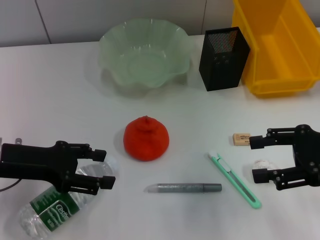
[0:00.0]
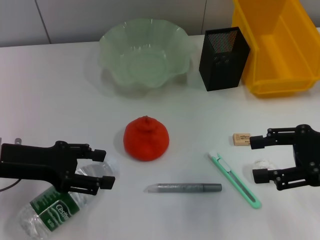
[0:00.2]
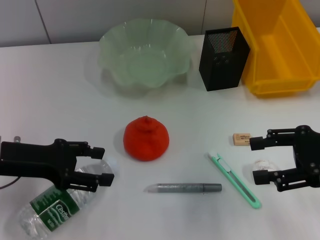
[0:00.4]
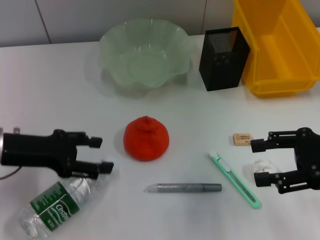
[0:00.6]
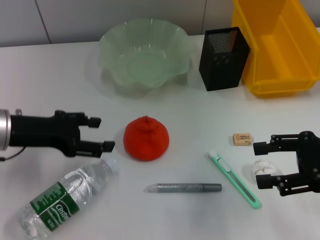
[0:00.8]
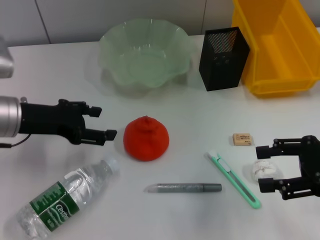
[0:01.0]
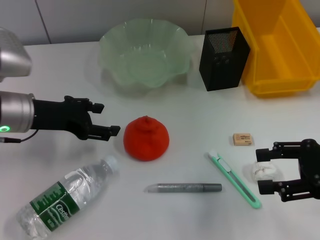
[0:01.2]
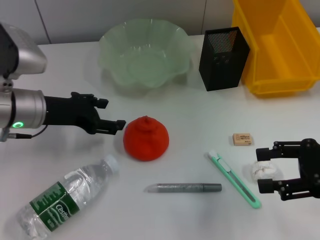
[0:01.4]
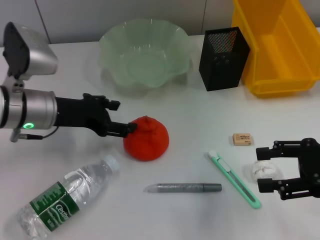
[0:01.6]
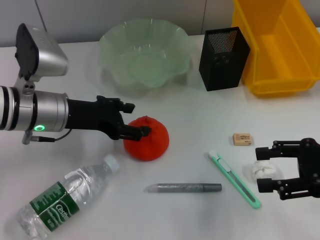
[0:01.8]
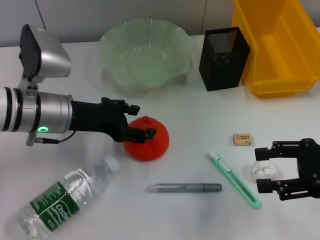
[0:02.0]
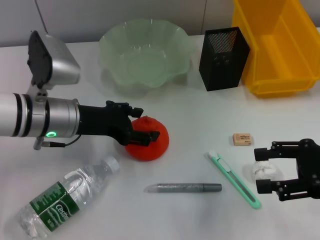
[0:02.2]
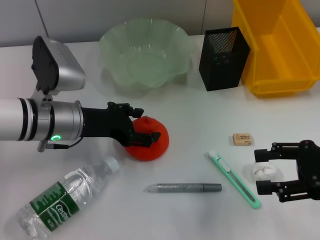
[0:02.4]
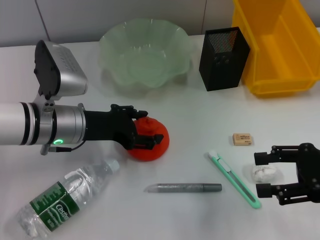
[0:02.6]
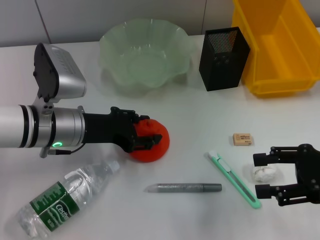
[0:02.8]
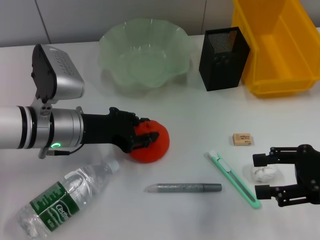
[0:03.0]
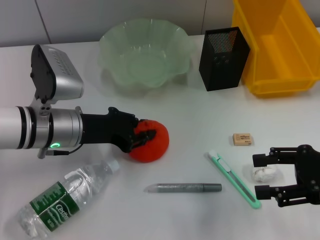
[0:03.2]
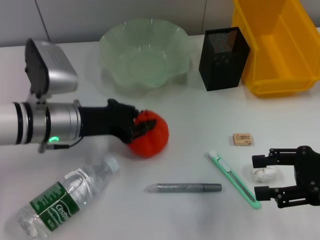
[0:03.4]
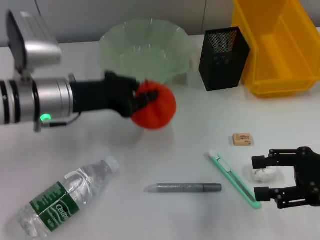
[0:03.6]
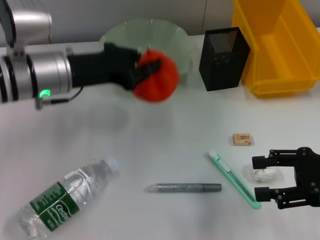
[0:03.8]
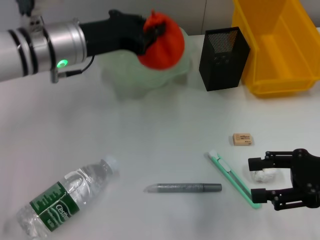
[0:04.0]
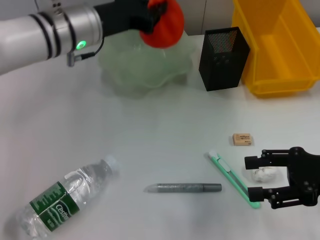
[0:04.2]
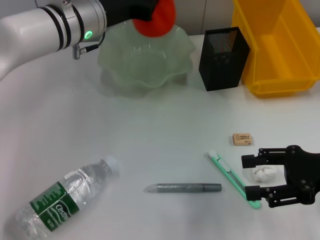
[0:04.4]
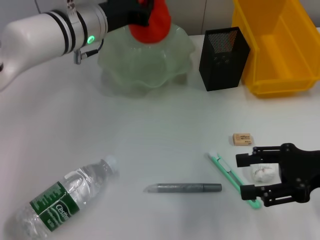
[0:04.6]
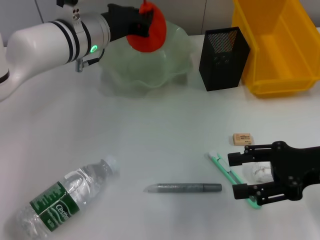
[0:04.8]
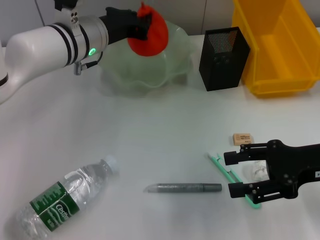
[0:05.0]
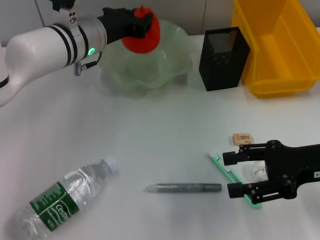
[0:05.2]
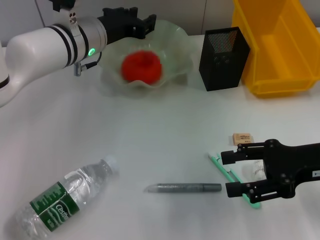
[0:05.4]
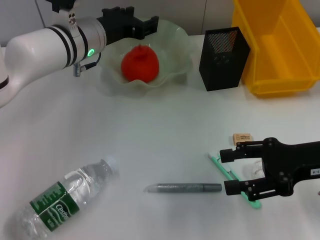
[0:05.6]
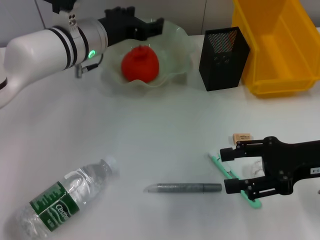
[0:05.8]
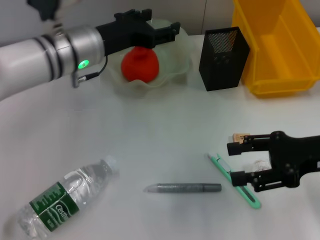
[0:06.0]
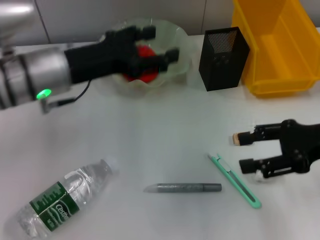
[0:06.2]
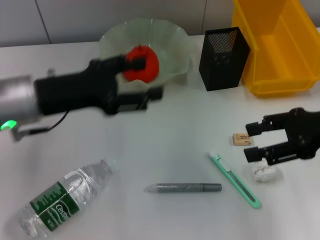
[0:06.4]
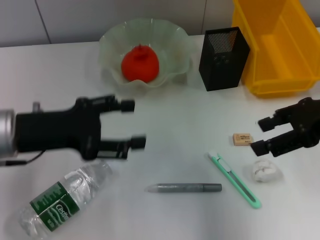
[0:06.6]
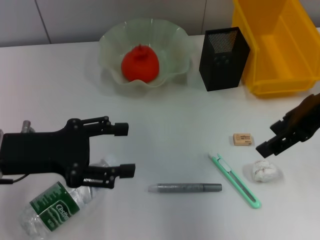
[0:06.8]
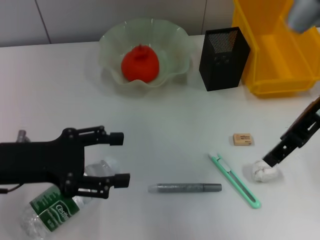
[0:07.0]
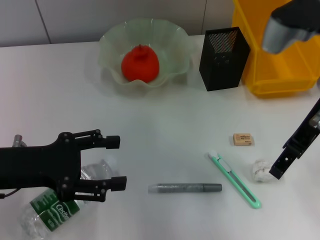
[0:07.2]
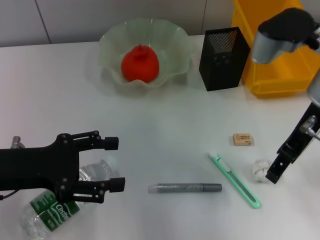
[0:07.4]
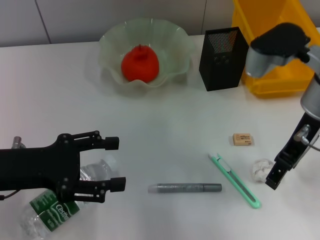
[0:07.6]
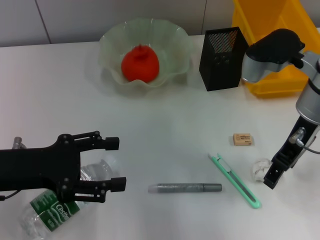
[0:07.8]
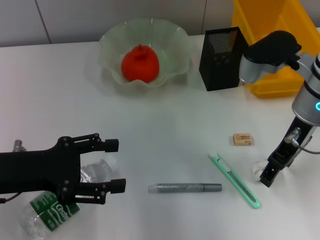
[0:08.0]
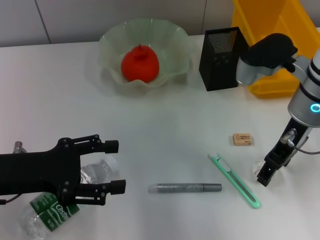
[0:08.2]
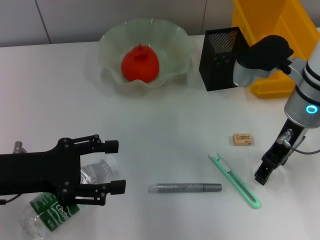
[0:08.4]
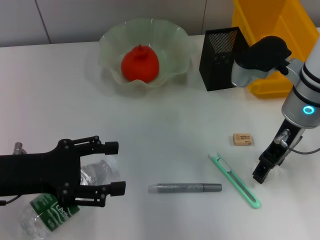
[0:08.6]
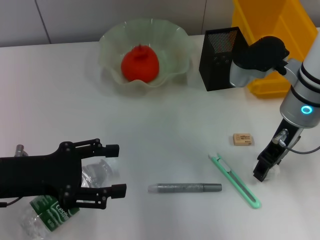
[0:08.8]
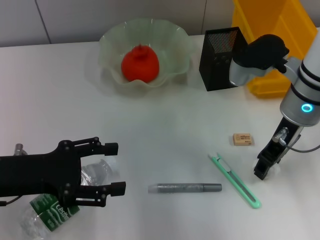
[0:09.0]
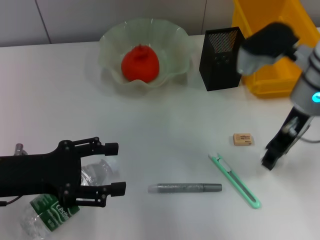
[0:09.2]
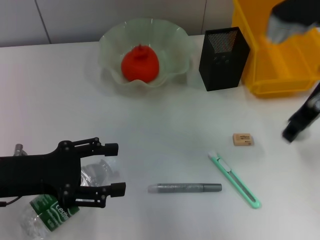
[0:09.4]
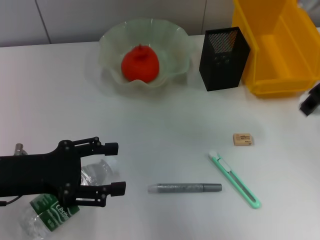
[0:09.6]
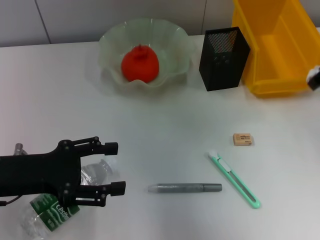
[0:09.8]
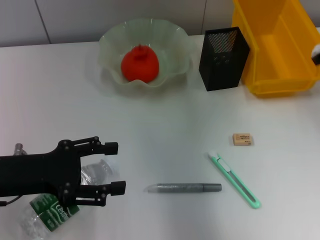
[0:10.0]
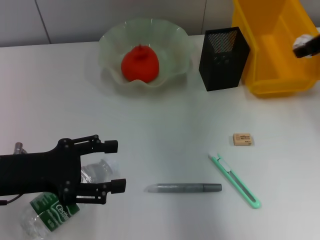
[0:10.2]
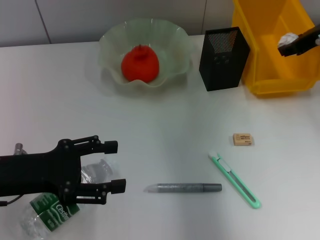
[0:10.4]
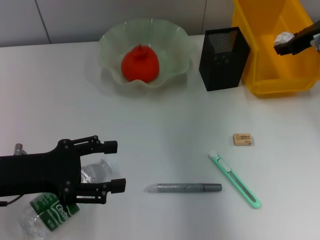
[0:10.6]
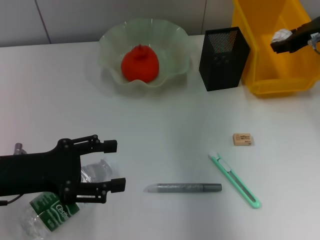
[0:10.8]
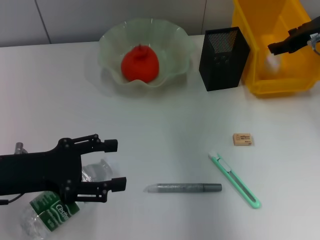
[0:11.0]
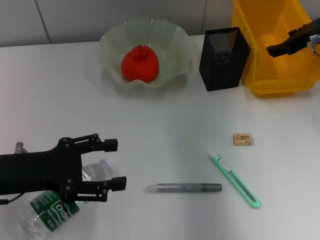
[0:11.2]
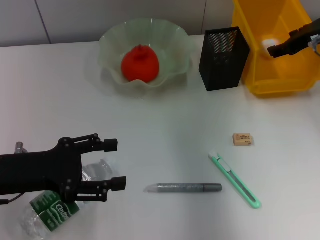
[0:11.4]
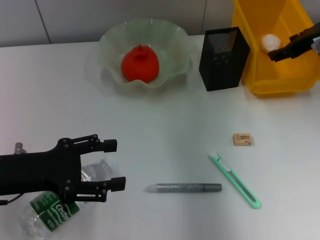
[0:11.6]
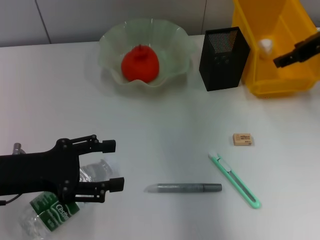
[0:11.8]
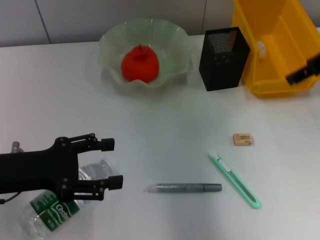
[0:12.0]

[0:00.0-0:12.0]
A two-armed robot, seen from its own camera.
Step, 0:00.0 to 0:03.0: Grab the orange with the left hand.
Step, 0:03.4 to 0:05.6: Place the orange into the fruit bowl with the left hand.
Step, 0:05.8 to 0:09.2: Grab the paper ball with the right hand.
Step, 0:09.4 to 0:11.2: Place the paper ball into the trash can with the right hand.
0:00.0 to 0:01.6: The left gripper moves forward and to the right, roughly 10 cm.
0:01.6 to 0:03.0: The grippers make only small movements.
0:03.0 to 0:04.4: The left gripper moves forward, upward and to the right, some 15 cm, and closes up.
0:04.4 to 0:06.0: The left gripper opens.
0:06.0 to 0:07.6: The left gripper moves backward and to the left, some 20 cm. The right gripper goes some 15 cm to the left, forward and upward.
0:07.6 to 0:09.0: The right gripper closes up.
0:09.0 to 0:10.4: The right gripper is displaced to the right and forward by roughly 10 cm.
0:10.4 to 0:12.0: The right gripper goes some 5 cm backward.

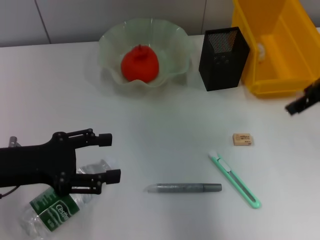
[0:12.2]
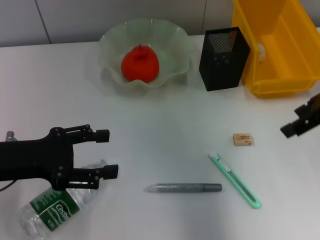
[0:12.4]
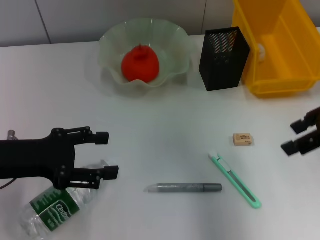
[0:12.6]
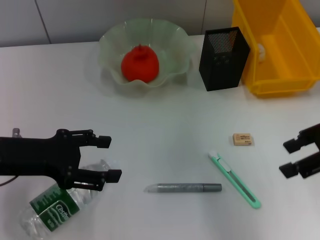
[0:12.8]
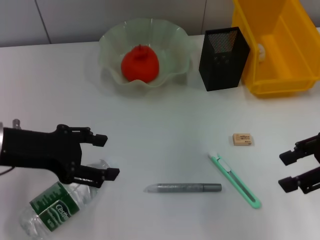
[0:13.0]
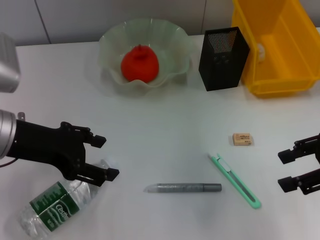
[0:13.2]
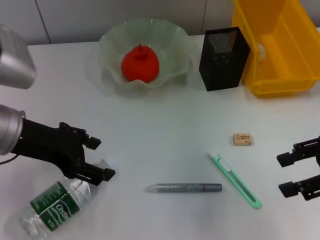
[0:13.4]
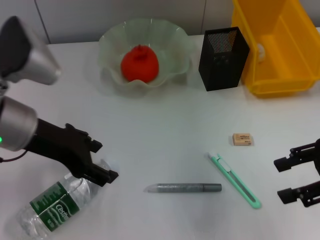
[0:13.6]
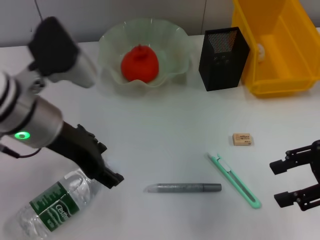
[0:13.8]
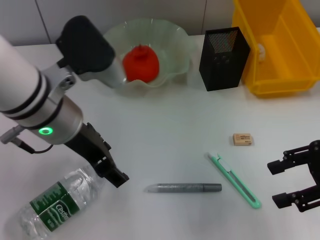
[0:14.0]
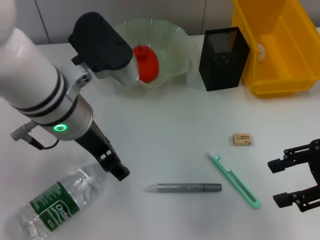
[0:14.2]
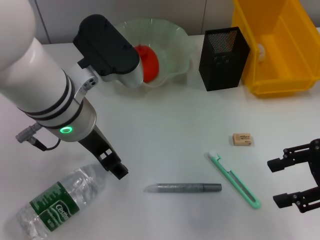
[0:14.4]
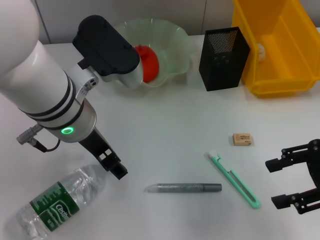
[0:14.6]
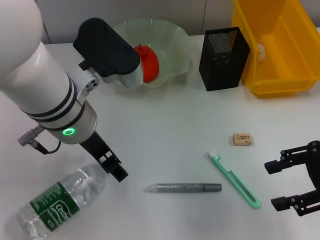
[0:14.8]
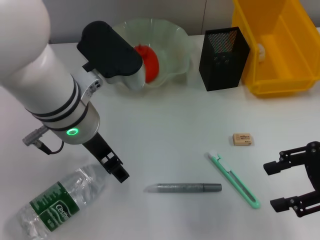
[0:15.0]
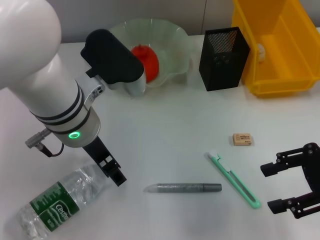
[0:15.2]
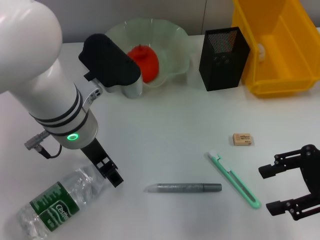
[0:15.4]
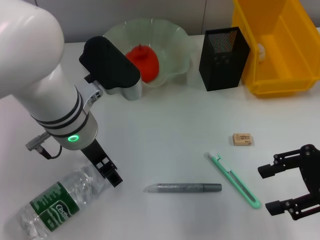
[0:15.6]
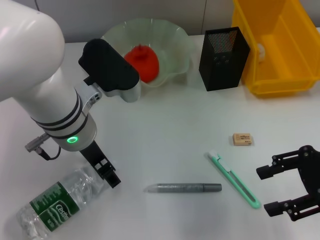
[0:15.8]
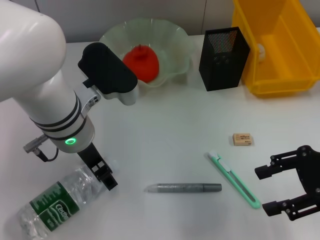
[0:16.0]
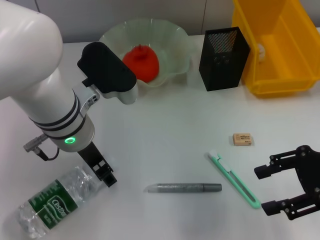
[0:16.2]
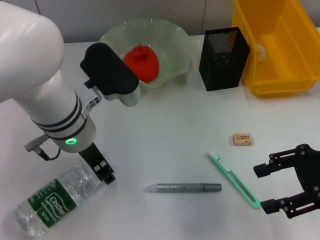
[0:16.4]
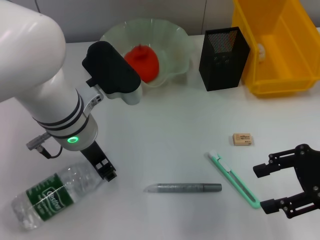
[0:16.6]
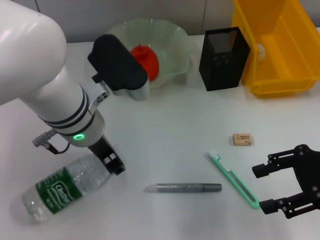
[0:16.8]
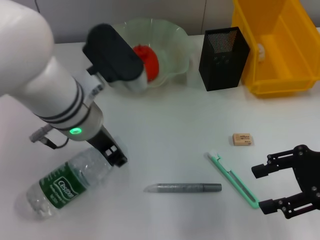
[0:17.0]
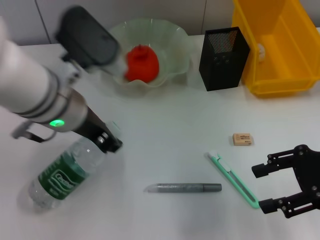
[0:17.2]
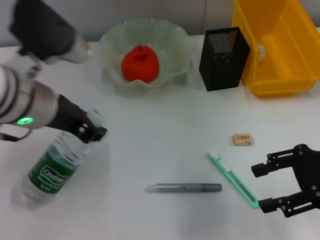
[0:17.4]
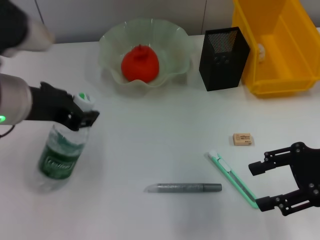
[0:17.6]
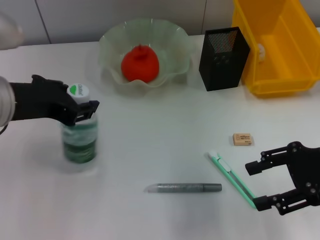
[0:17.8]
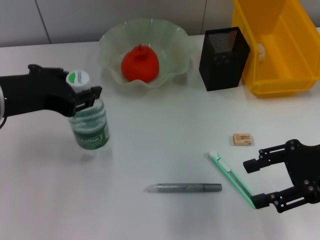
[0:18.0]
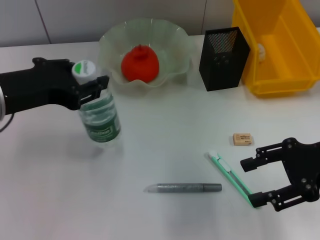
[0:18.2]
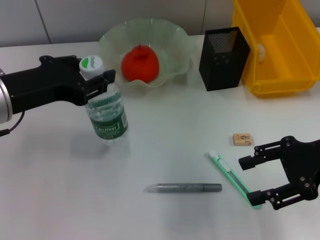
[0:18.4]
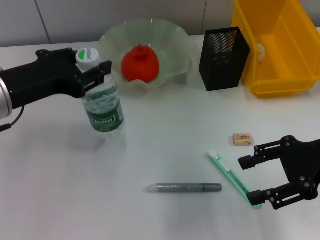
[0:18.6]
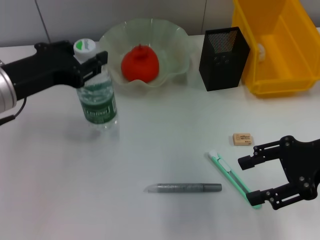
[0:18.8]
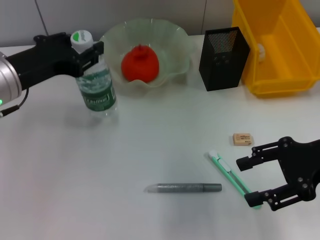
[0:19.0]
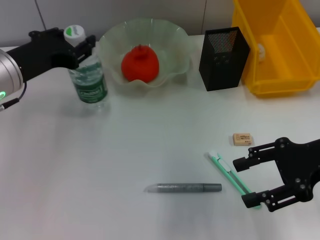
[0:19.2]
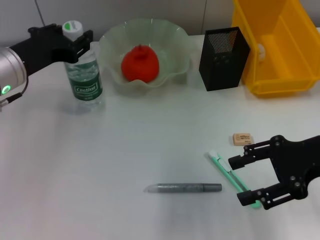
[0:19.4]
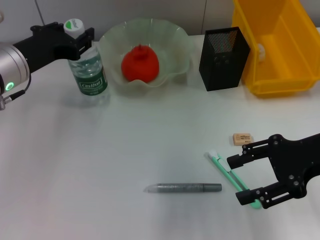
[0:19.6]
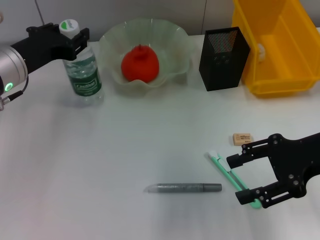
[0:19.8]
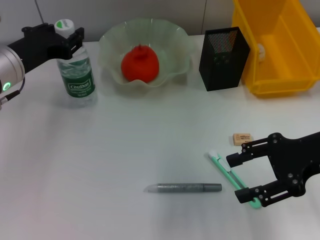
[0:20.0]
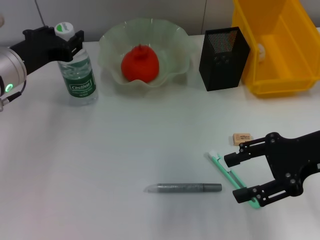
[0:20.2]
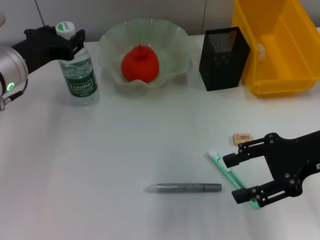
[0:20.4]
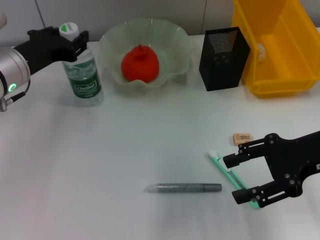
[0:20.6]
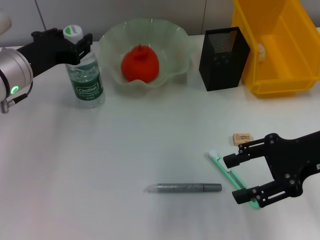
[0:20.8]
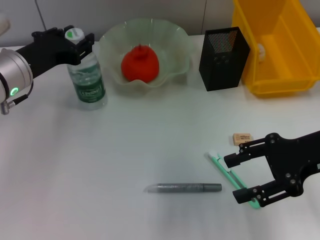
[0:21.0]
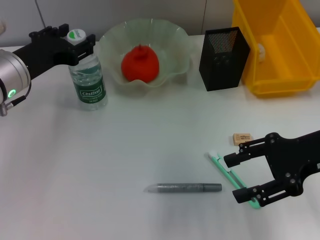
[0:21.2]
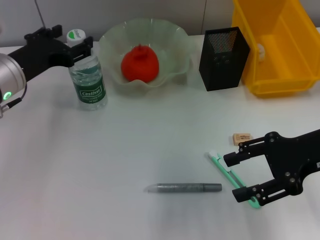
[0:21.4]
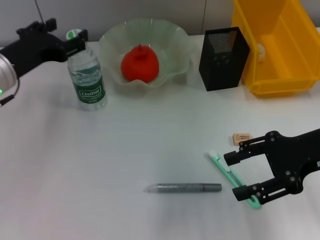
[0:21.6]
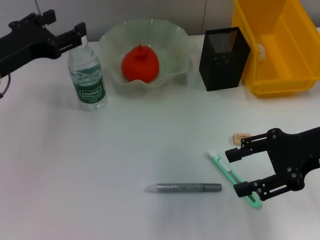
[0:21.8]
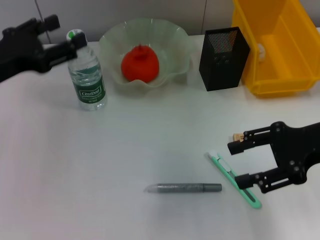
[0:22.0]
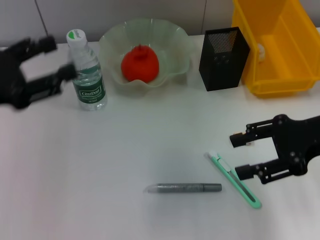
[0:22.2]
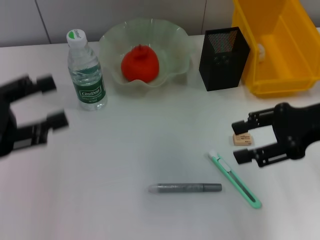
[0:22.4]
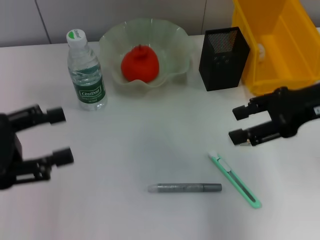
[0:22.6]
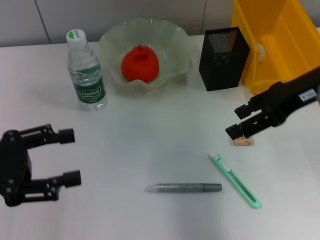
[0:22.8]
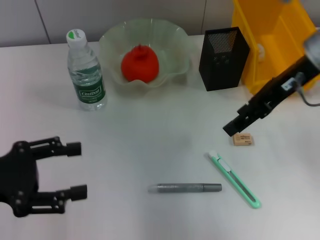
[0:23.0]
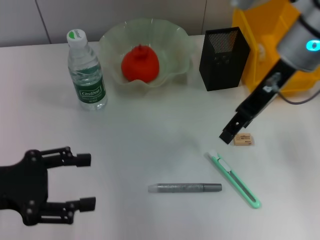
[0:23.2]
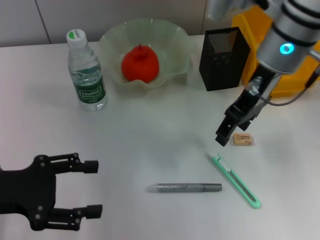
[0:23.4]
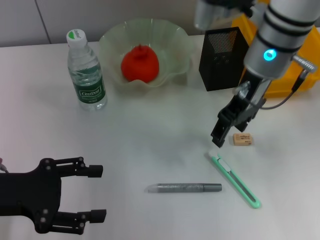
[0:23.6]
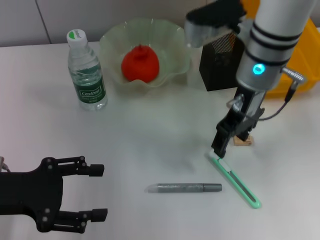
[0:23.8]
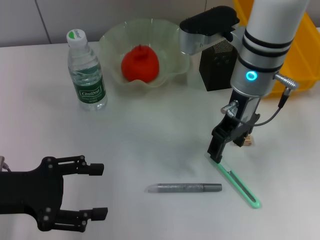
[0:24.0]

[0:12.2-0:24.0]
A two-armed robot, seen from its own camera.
Step, 0:12.2 to 0:16.8: Grab the water bottle with the left hand.
Step, 0:17.0 to 0:21.6: Place the water bottle on the table with the left hand.
0:12.2 to 0:13.6: The right gripper is displaced backward and downward by about 10 cm. The left gripper moves to the right and upward, some 10 cm.
0:13.6 to 0:15.2: The left gripper travels to the right by roughly 10 cm.
0:15.2 to 0:16.6: The left gripper closes up.
0:16.6 to 0:18.2: The left gripper is displaced to the left and upward by about 10 cm.
0:18.2 to 0:19.6: The left gripper is displaced forward and downward by some 10 cm.
0:19.6 to 0:21.0: The grippers make only small movements.
0:21.0 to 0:22.6: The right gripper travels upward by roughly 5 cm. The left gripper travels backward and to the left by approximately 15 cm.
0:22.6 to 0:24.0: The right gripper is displaced to the left and forward by some 15 cm.
